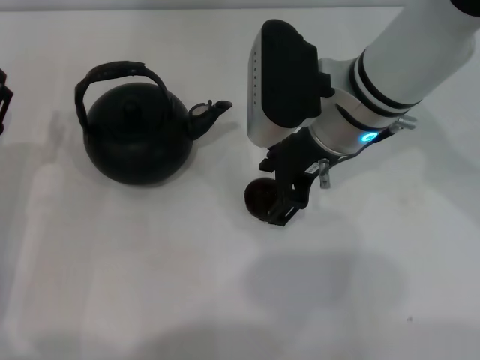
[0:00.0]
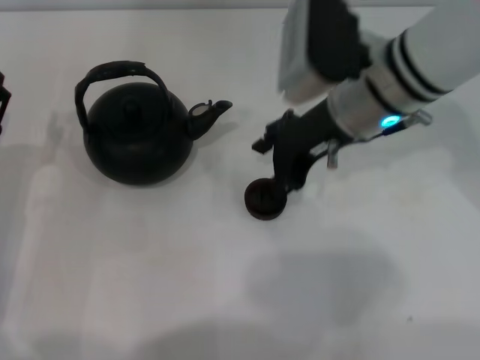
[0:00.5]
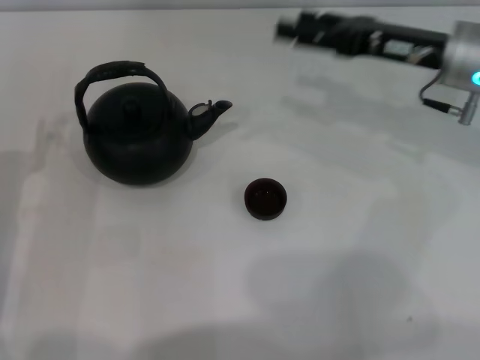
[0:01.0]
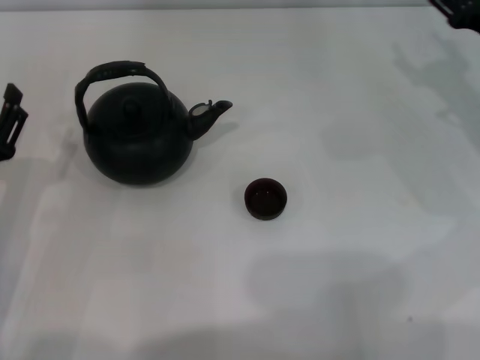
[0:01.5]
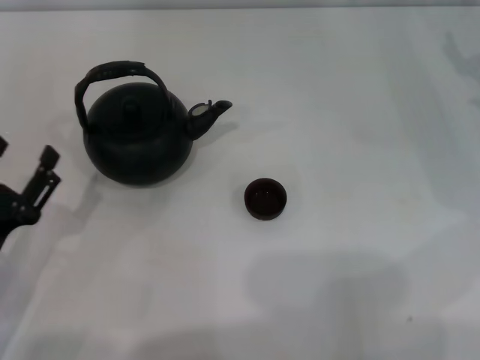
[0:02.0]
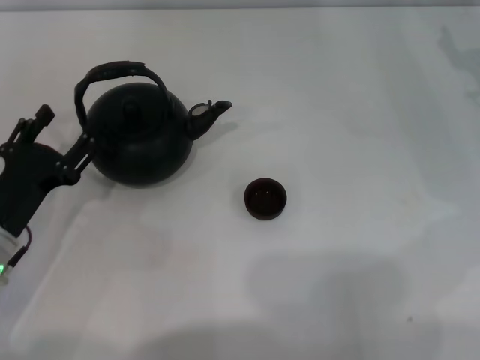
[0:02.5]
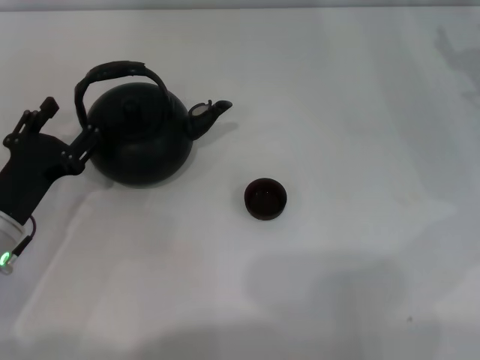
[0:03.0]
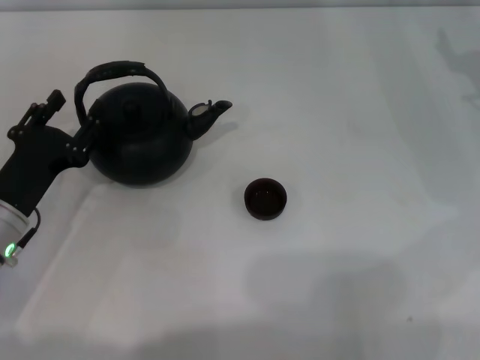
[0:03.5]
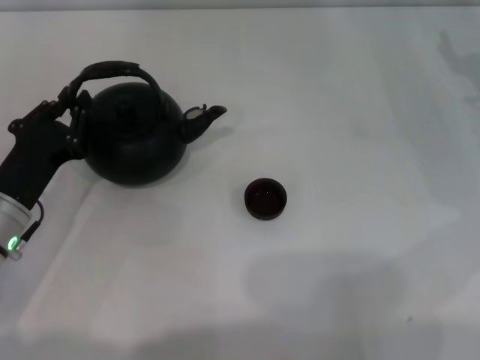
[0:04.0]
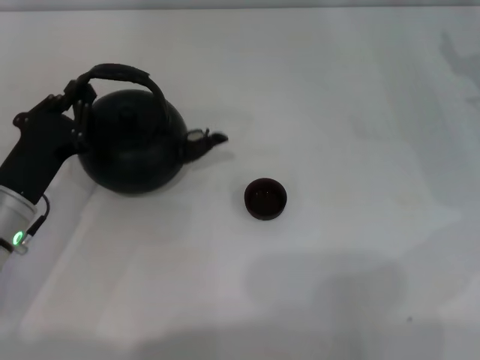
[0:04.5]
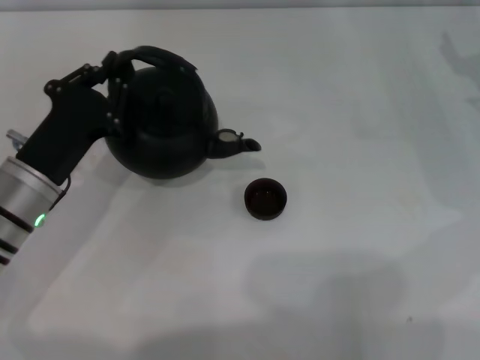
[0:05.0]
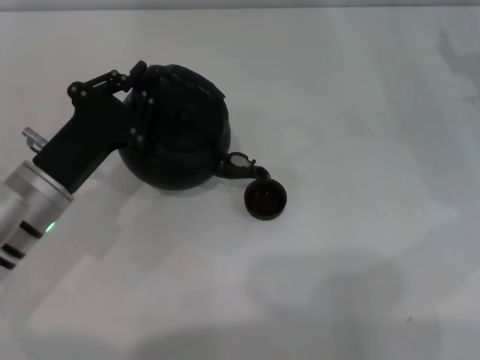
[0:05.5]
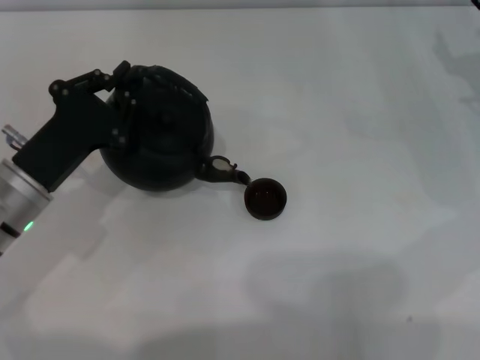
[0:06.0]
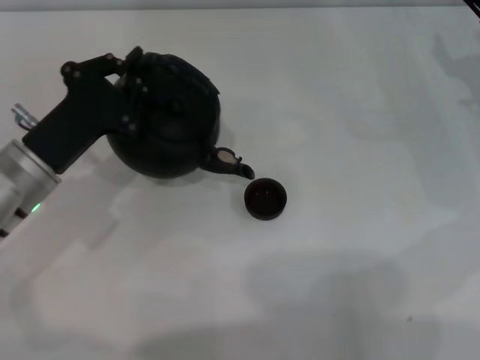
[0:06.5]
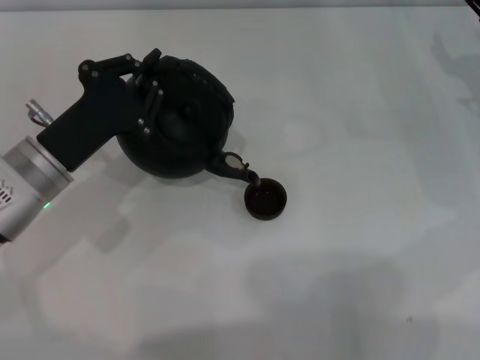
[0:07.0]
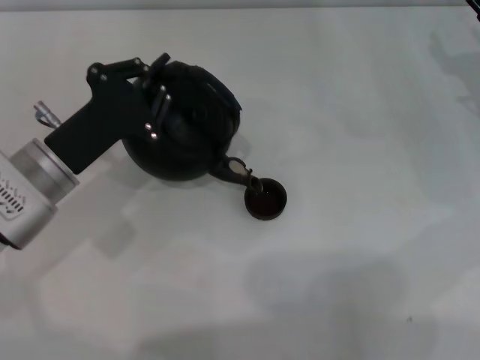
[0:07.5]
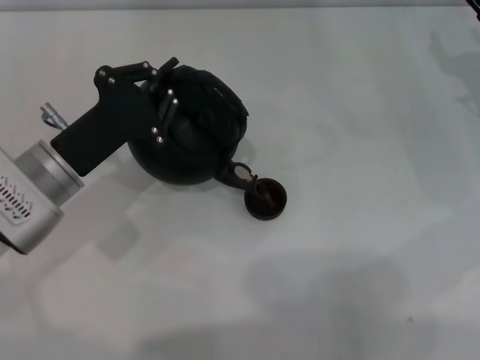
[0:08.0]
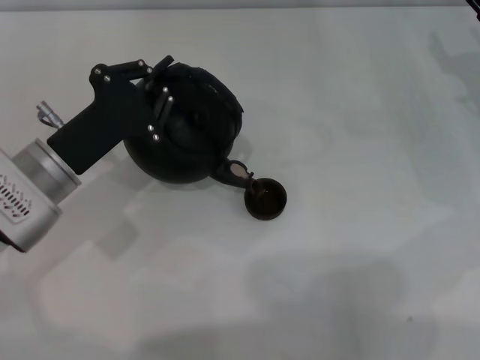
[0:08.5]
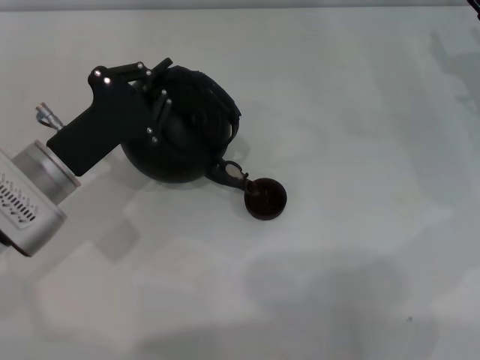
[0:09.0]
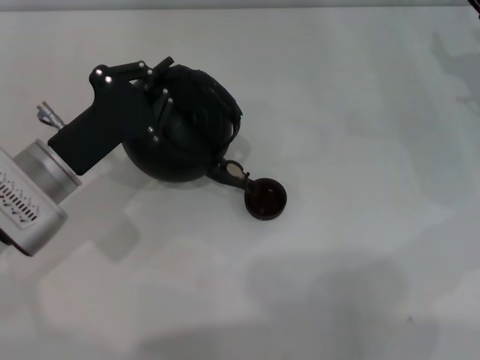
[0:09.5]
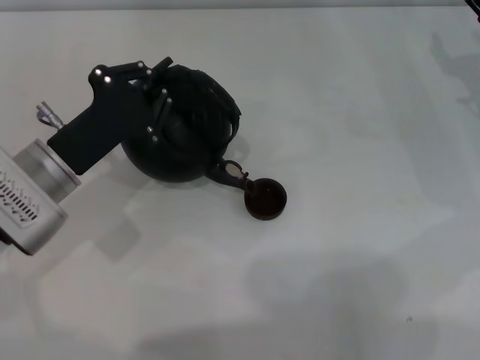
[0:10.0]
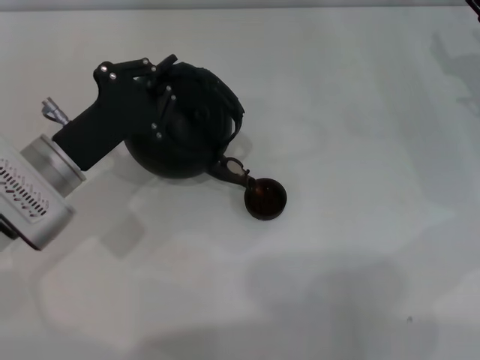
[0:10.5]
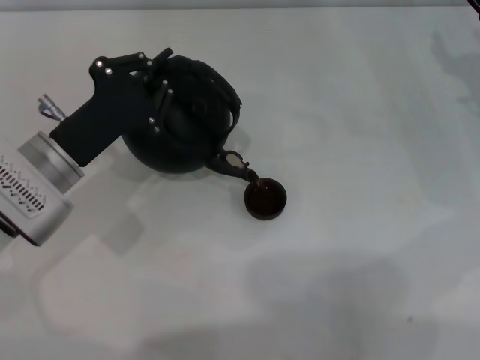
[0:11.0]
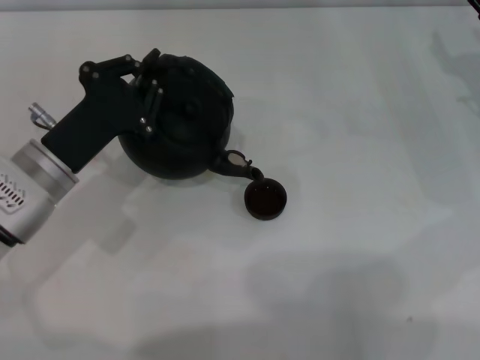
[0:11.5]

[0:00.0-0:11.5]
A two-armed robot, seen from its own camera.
Task of the whole recording: Grasp the handle of the teapot with one hand and pour tea into the teacup.
Step, 0:01.0 to 0:04.5: Pick up the teapot with the left gripper.
0:00.0 to 0:02.0: The left gripper goes about 5 cm backward. Meanwhile the right gripper heads to the right, covering about 25 cm.
0:02.0 to 0:04.0: The left gripper heads forward, covering roughly 10 cm, and closes up.
0:04.0 to 0:06.0: The left gripper closes its fingers.
0:06.0 to 0:07.5: The grippers stay close to where they were, moving slightly.
0:07.5 to 0:11.5: There are only small adjustments of the grippers.

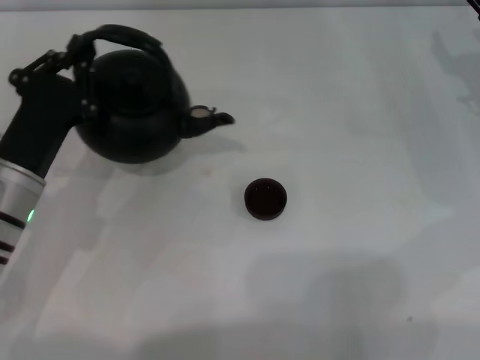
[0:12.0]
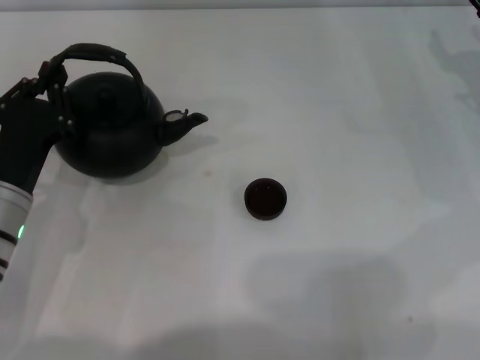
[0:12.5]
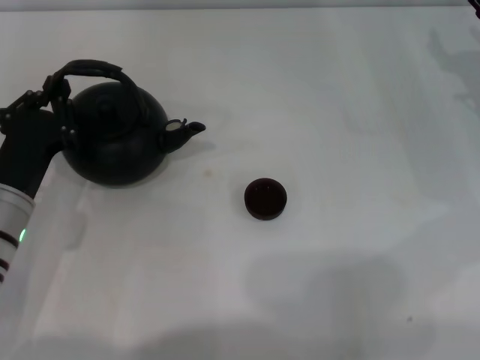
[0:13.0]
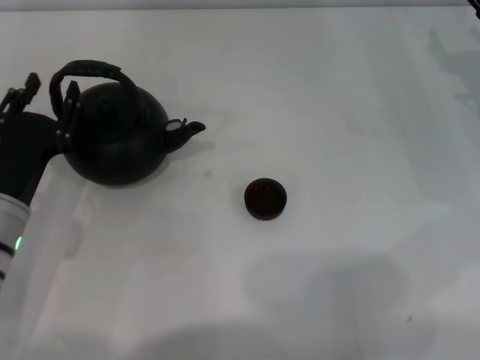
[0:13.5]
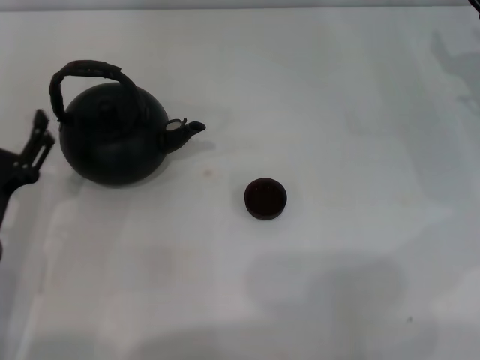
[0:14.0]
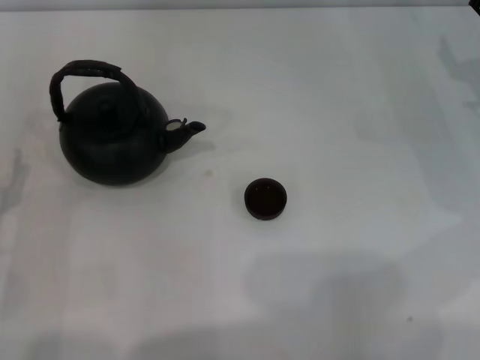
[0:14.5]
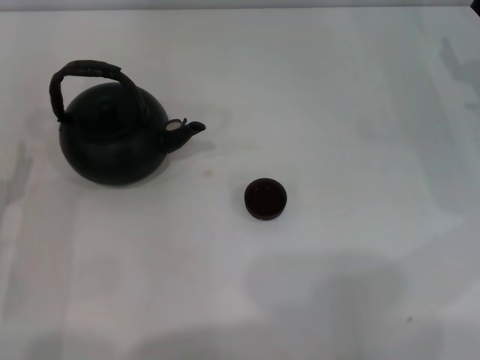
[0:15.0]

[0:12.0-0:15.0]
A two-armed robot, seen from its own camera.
Task of the whole recording: Grasp the handle of the teapot with one hand and pour tea into the teacup.
Step, 0:12.0 to 0:13.5: Put down the teapot with the left gripper.
0:12.0 to 0:13.5: The grippers stay close to where they were, moving slightly.
0:13.5 to 0:15.0: The left gripper goes approximately 10 cm to the left and backward, and opens its fingers.
